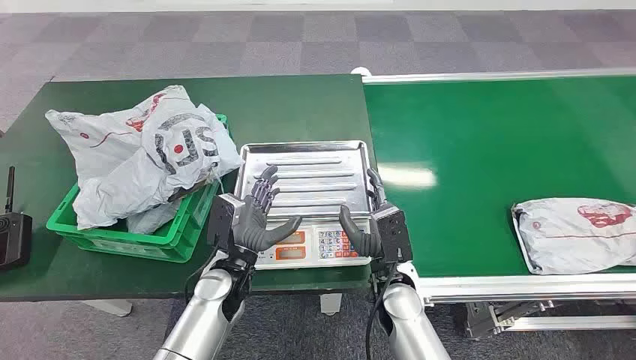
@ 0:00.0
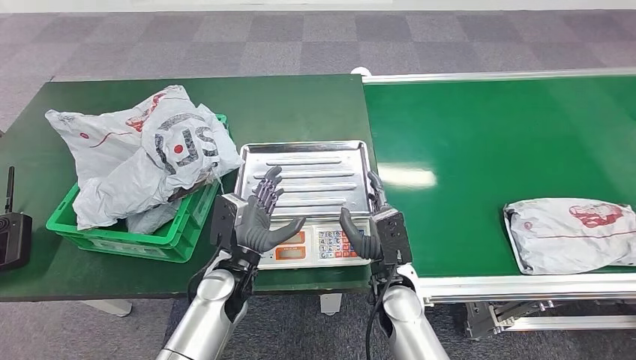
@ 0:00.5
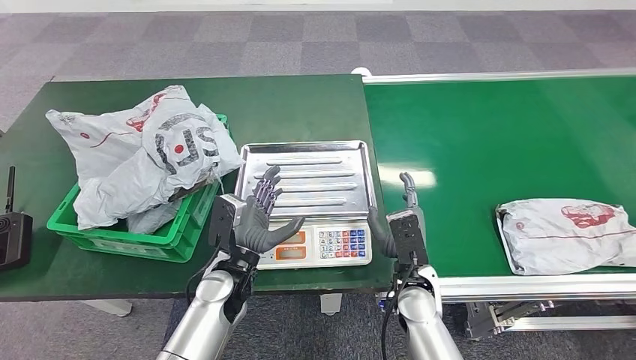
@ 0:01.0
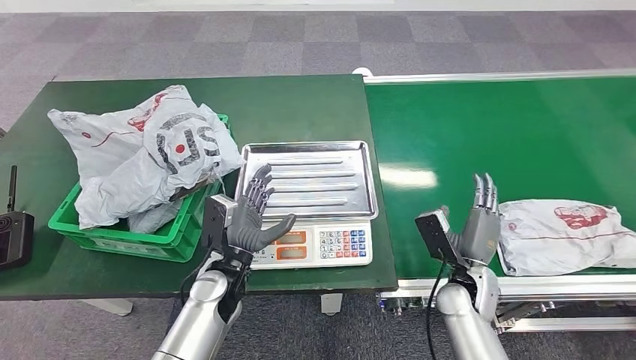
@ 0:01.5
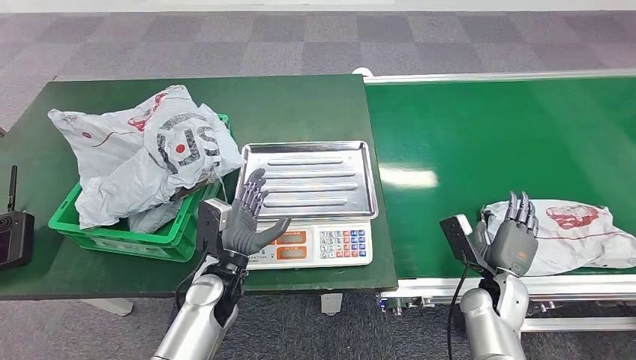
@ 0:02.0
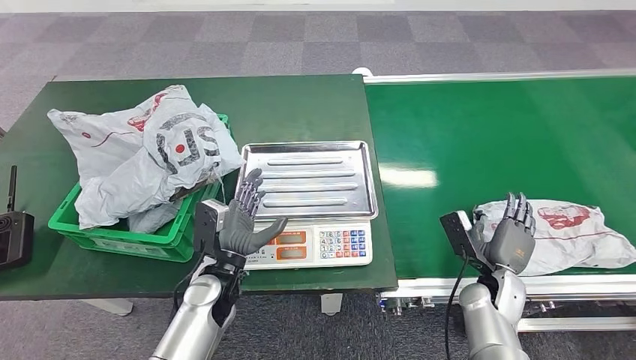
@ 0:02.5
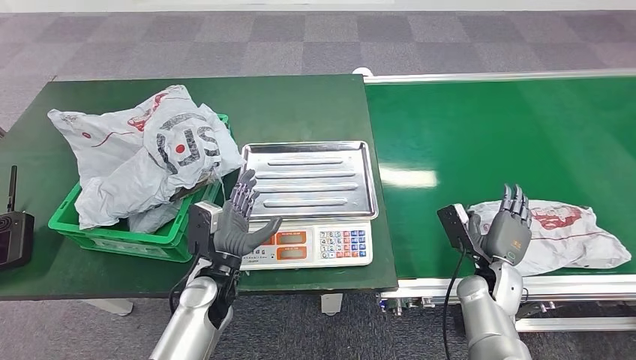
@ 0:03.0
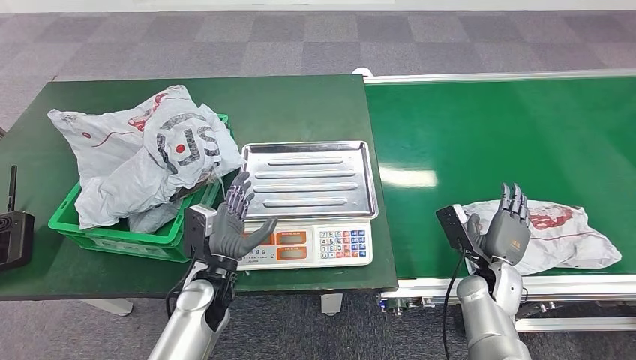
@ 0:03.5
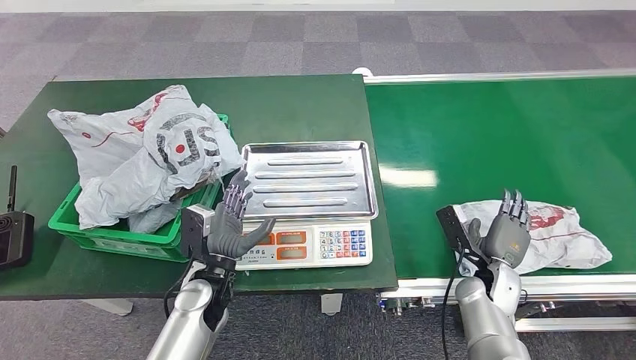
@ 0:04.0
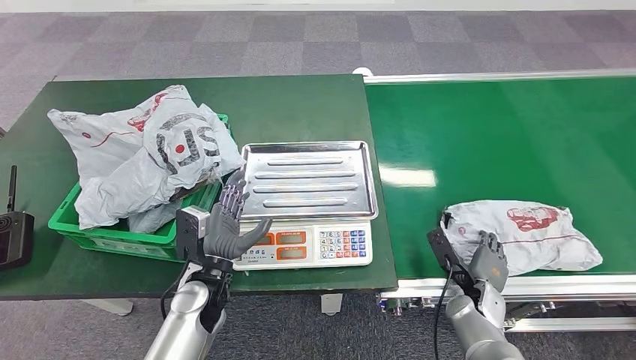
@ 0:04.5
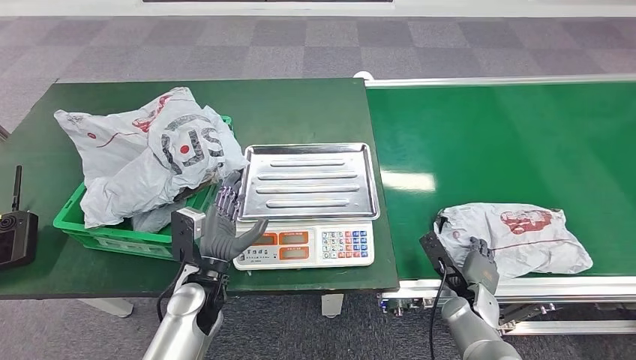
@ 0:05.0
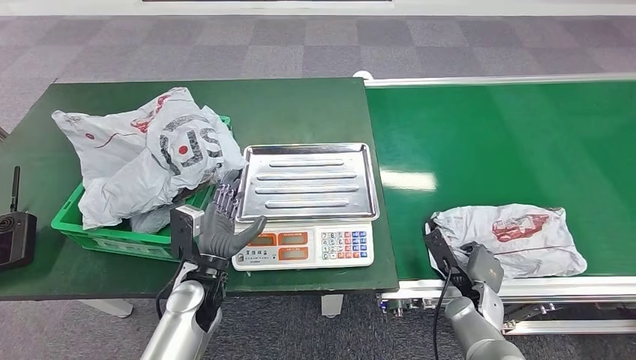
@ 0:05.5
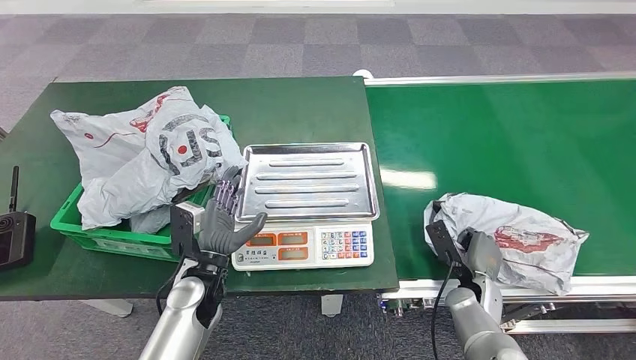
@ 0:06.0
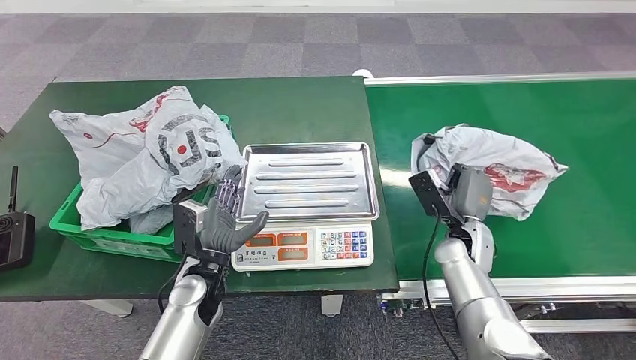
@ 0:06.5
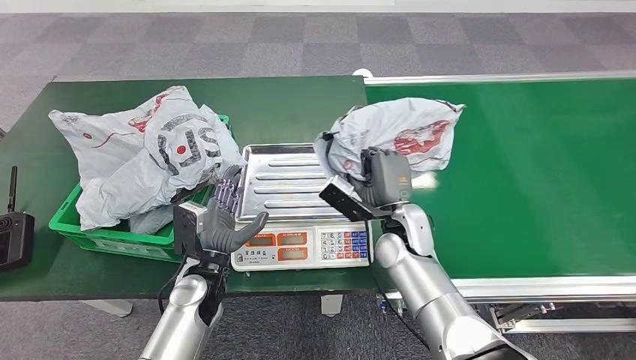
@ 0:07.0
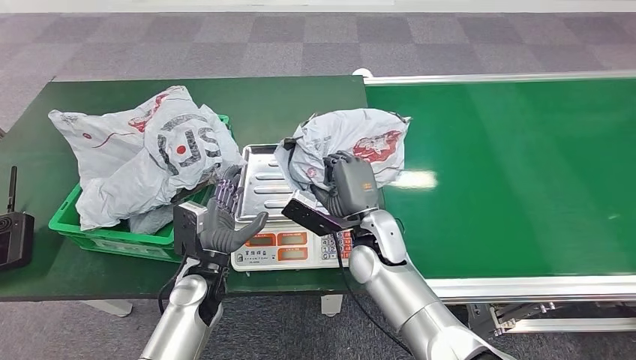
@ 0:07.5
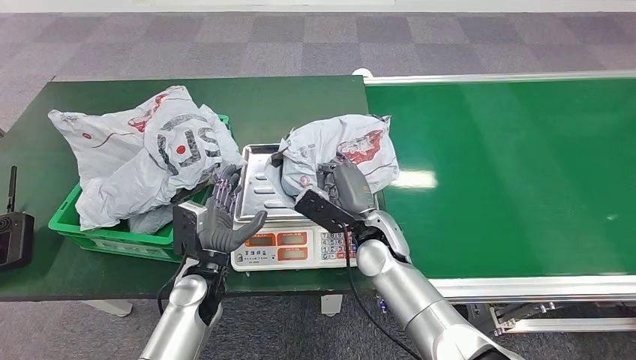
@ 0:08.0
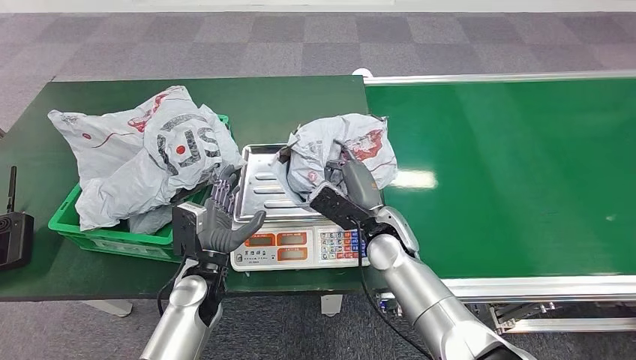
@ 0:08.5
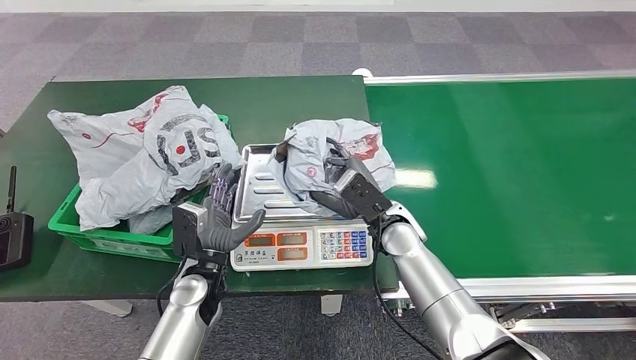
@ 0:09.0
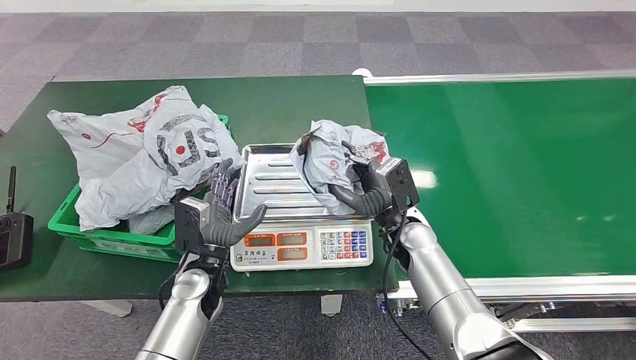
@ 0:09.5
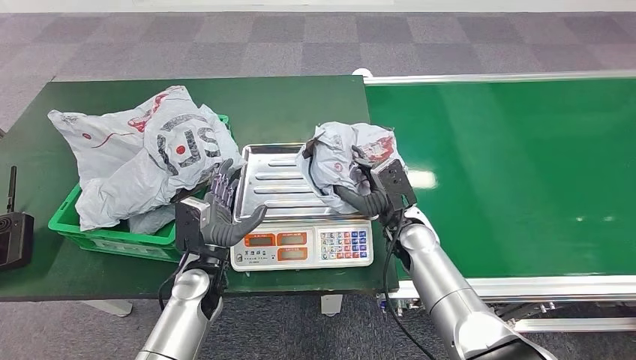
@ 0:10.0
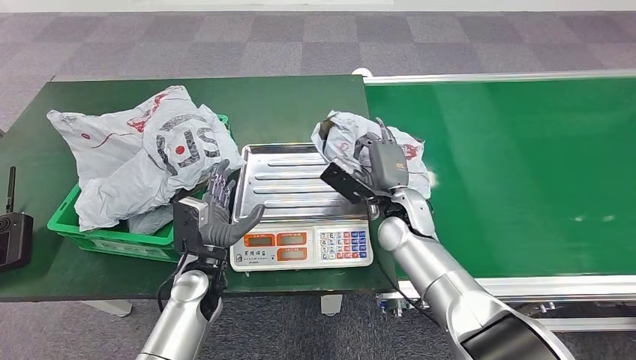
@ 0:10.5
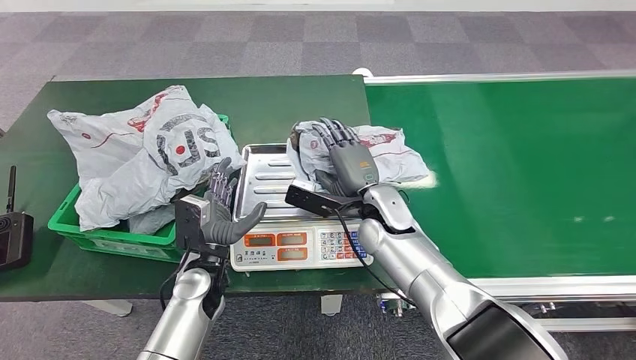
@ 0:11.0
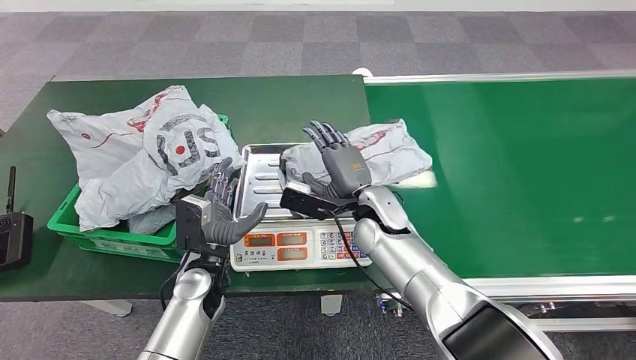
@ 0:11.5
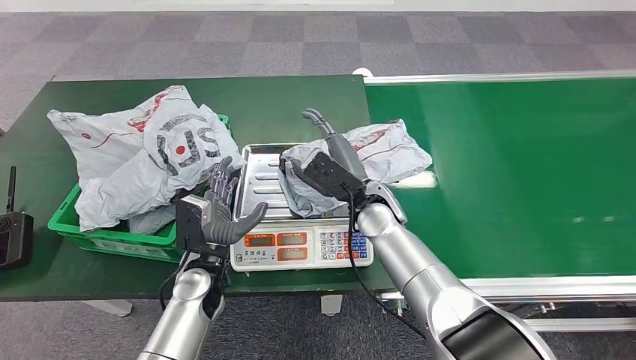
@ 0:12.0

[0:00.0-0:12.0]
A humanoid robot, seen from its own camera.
Task of the whole recording: Weigh the package on the weighing device and place it in the left basket.
Step, 0:00.0 to 0:06.5: Pick up the package from the conveyor belt.
Step, 0:07.0 to 0:11.5: Place the package onto the inbound machine.
0:02.0 to 0:04.0: The hands make only small movements.
0:08.0 to 0:10.0: The right hand goes some 5 cm to the right.
0:10.0 to 0:12.0: The right hand moves to the left and upward, some 10 cm.

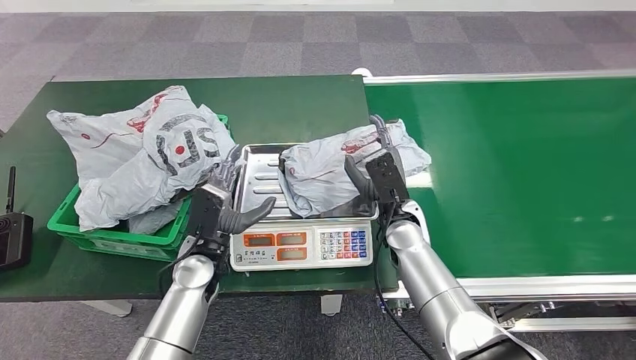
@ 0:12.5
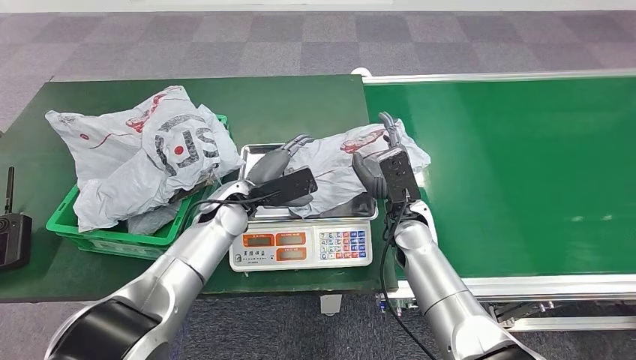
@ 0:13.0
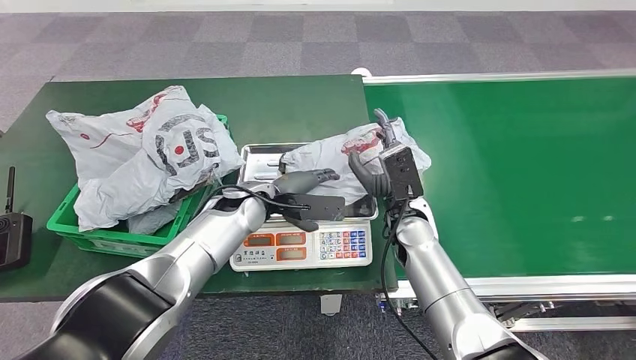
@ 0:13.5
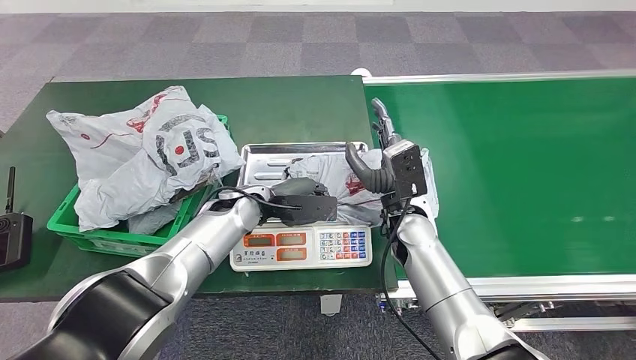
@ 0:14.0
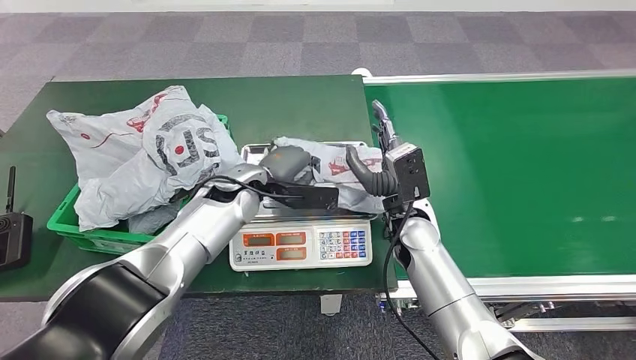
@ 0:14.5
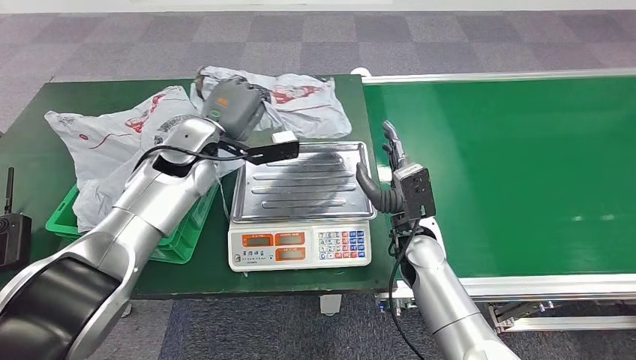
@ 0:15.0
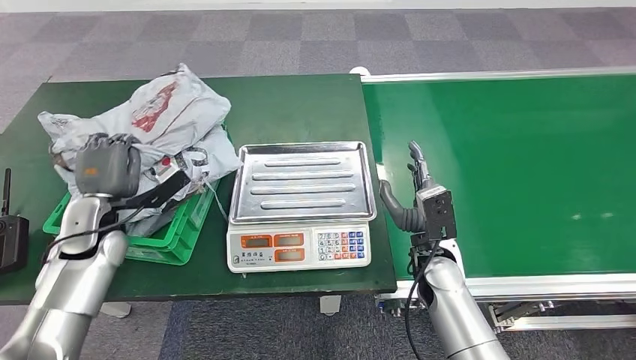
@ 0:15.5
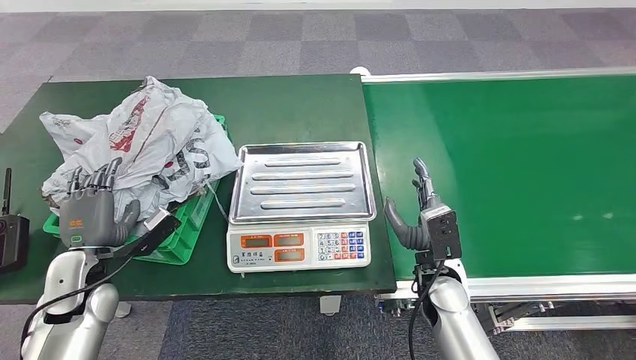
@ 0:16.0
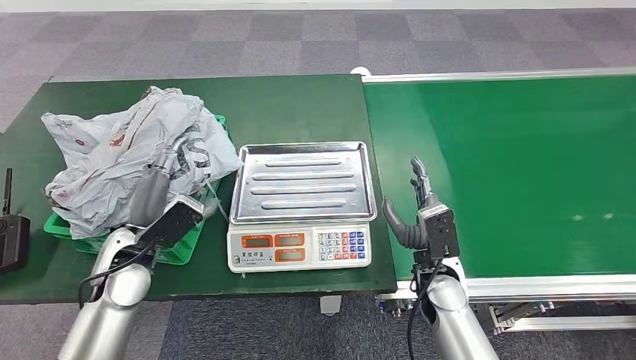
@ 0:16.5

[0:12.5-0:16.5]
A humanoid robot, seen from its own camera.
Task of the whole recording: Weigh the package on the weighing device and place it in the left basket.
Step, 0:12.5 to 0:15.0: Pick up the package from the inbound machine.
Step, 0:15.5 to 0:16.5: Place the package into the parcel locker.
0:12.5 to 0:14.5: The left hand is displaced forward and upward by some 15 cm.
